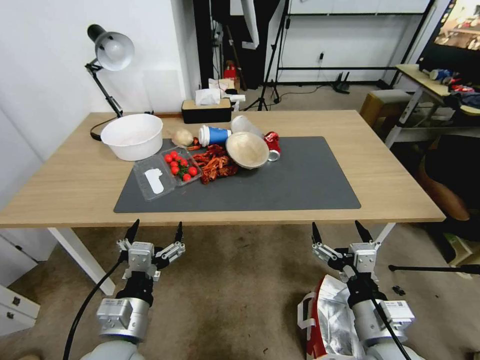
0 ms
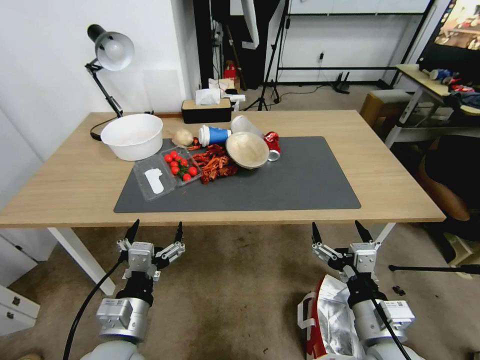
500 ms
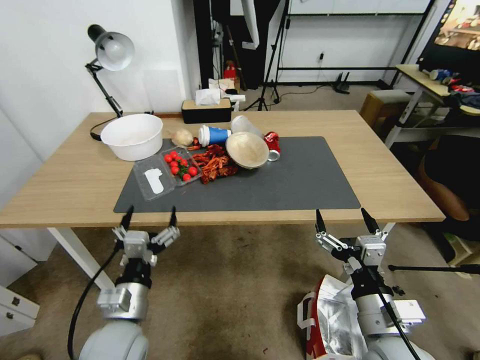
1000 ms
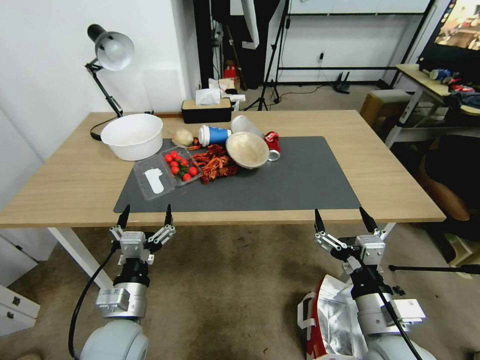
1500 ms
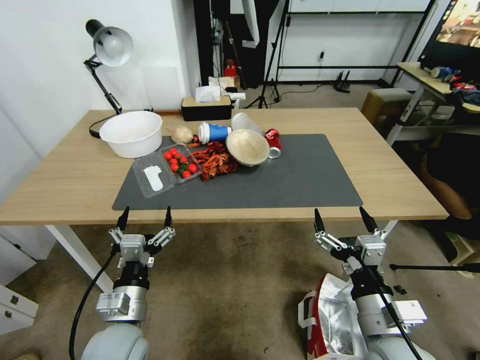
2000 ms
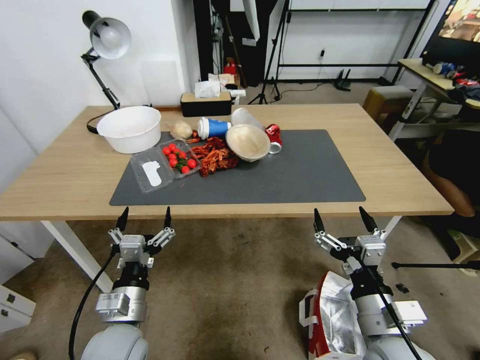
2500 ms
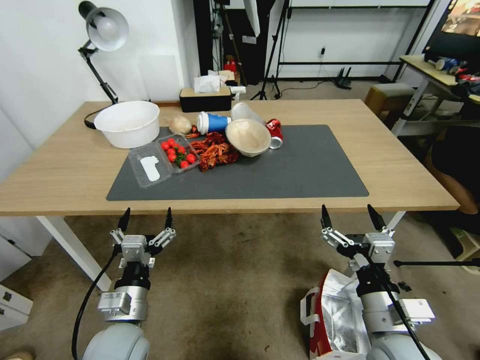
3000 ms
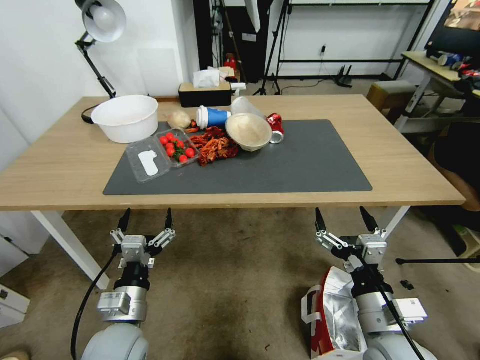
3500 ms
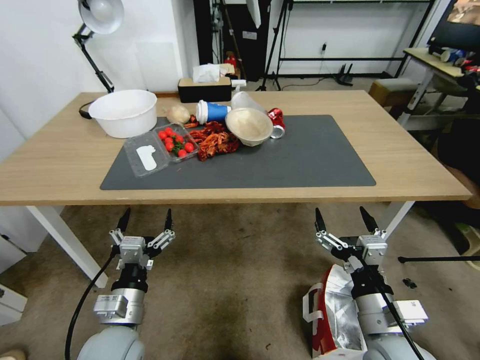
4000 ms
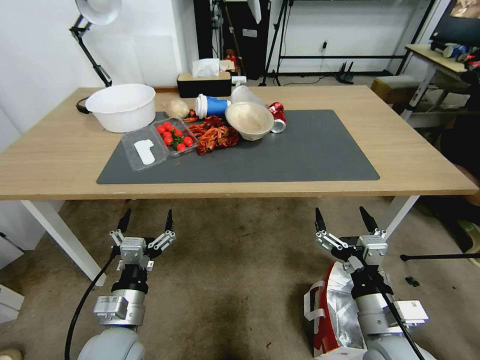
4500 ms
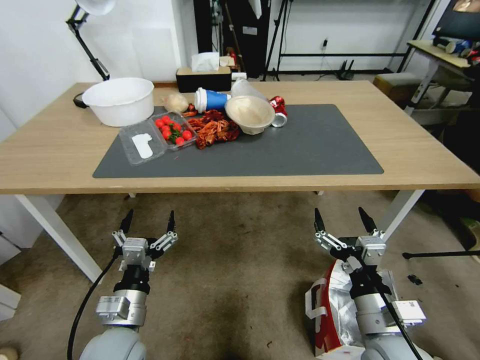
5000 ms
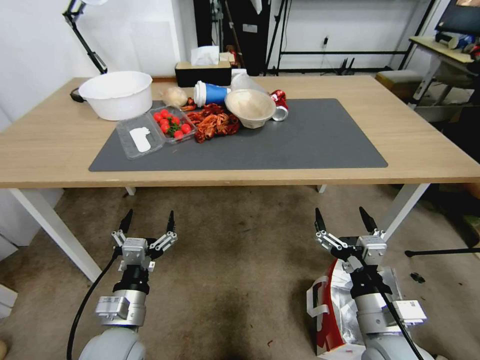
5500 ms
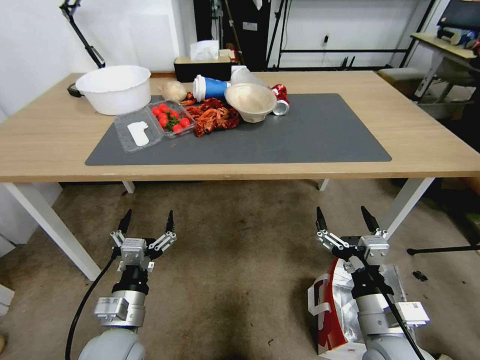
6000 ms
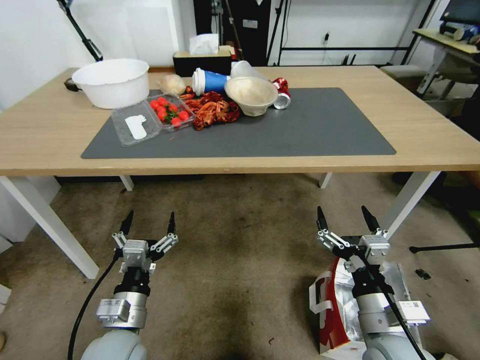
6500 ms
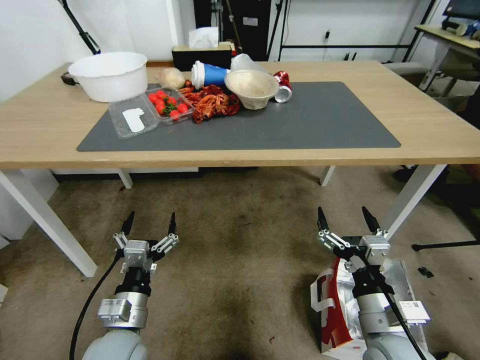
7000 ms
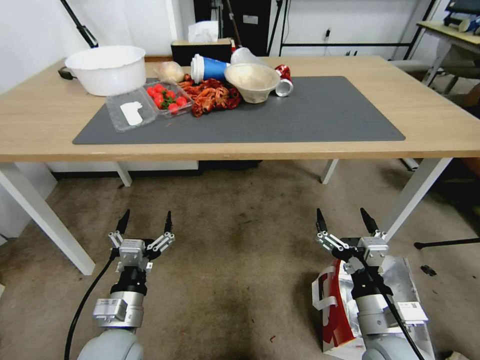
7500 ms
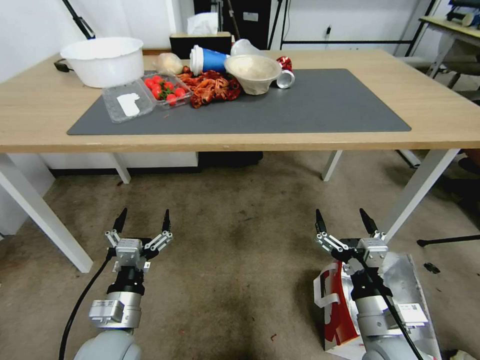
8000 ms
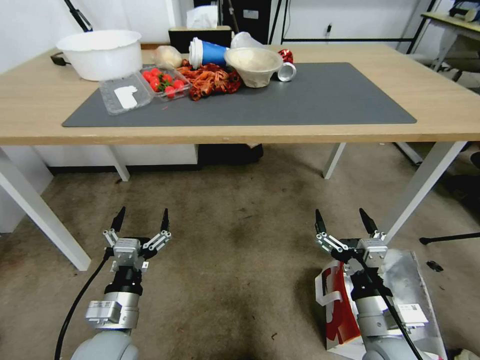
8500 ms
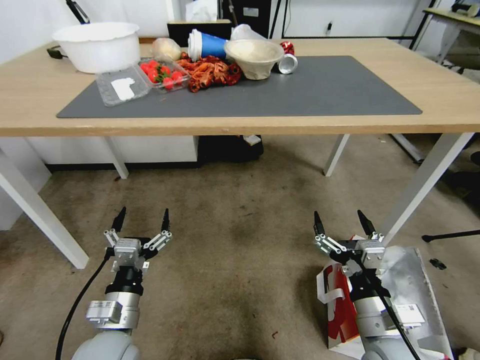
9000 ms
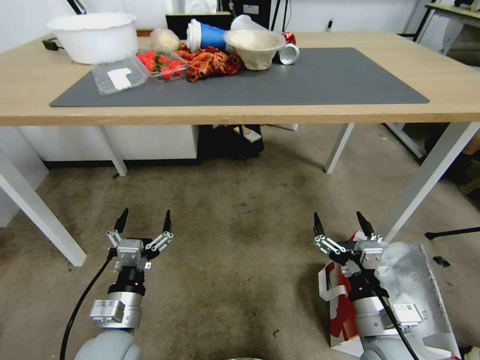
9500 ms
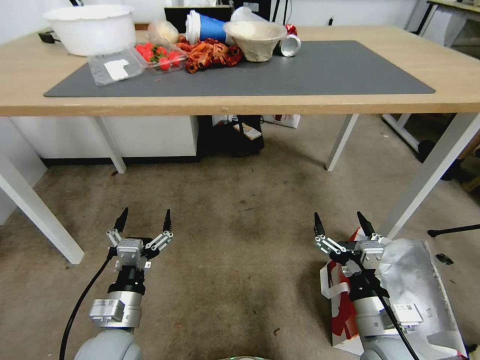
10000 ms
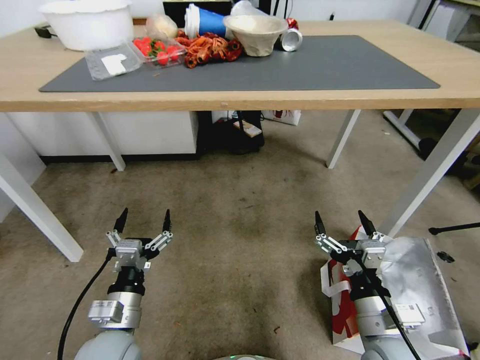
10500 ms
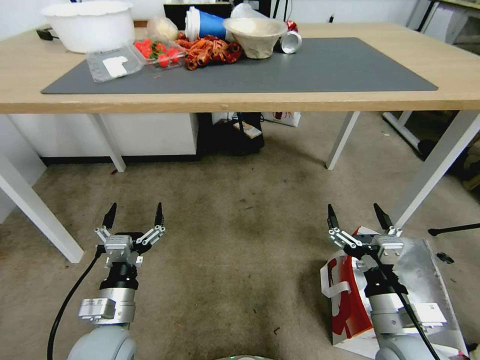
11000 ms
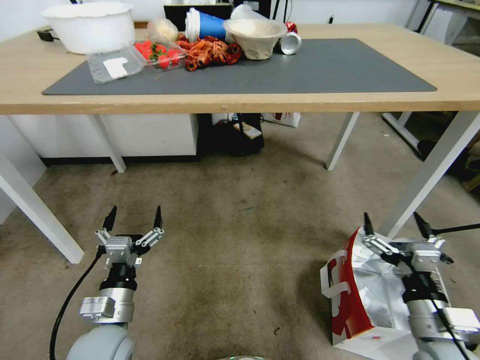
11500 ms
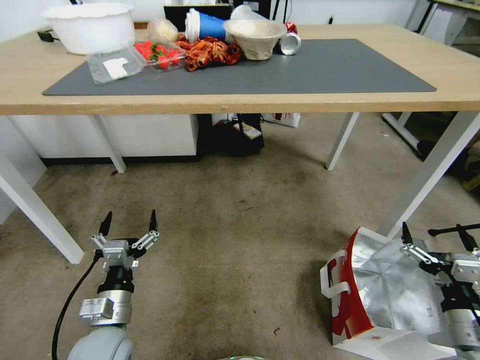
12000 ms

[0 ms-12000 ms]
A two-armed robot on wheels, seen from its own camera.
Task of the whole recording: Pick up the food delivery bag from the floor and place it on the table.
10000 ms to 12000 ms: The right gripper shifts approximately 15 cm to the right.

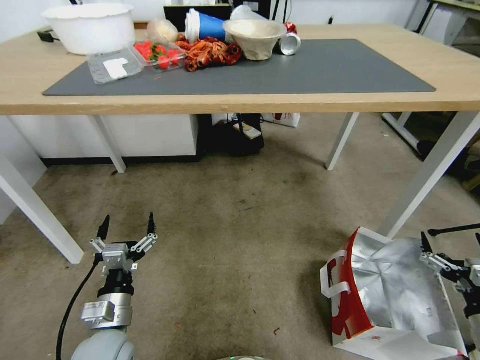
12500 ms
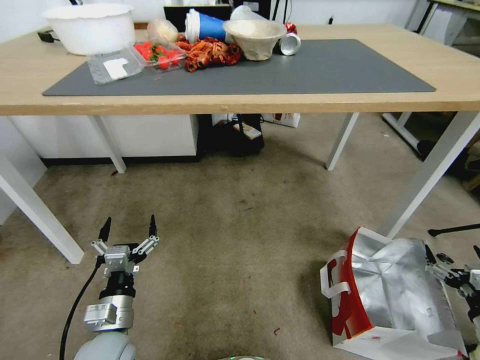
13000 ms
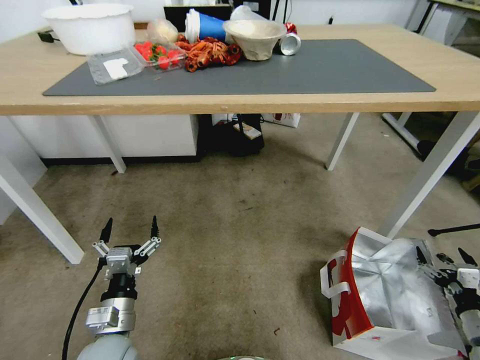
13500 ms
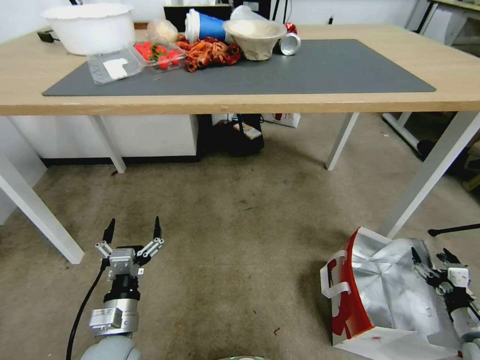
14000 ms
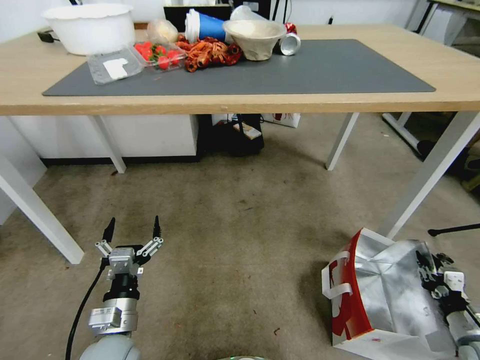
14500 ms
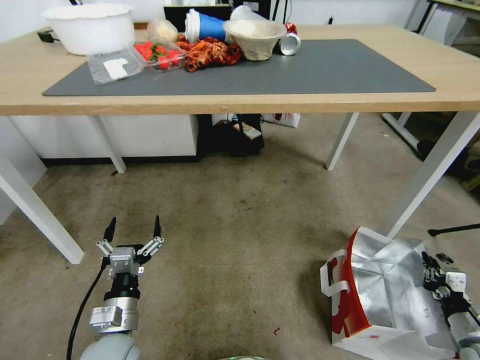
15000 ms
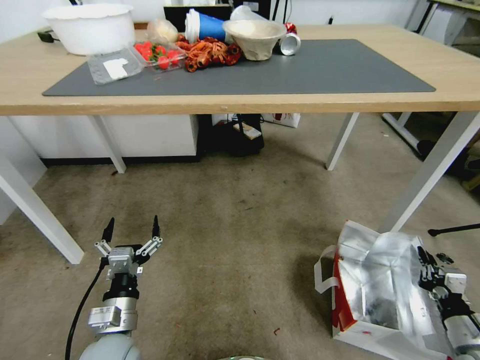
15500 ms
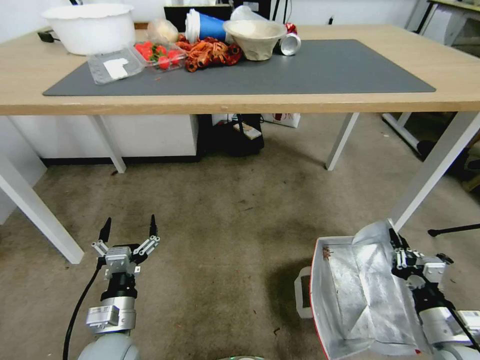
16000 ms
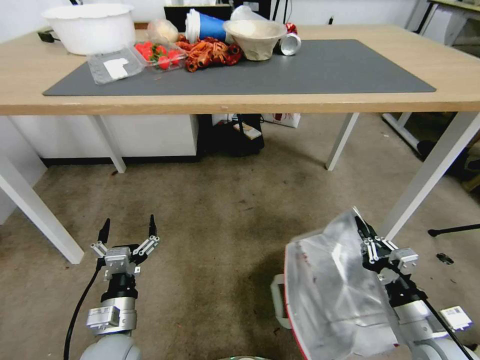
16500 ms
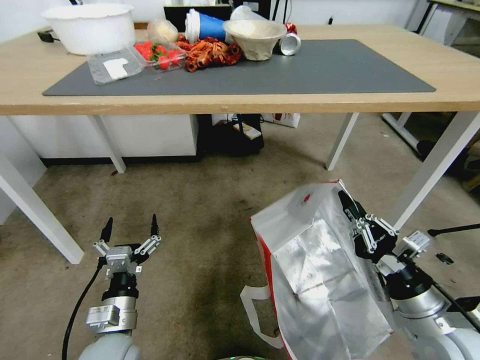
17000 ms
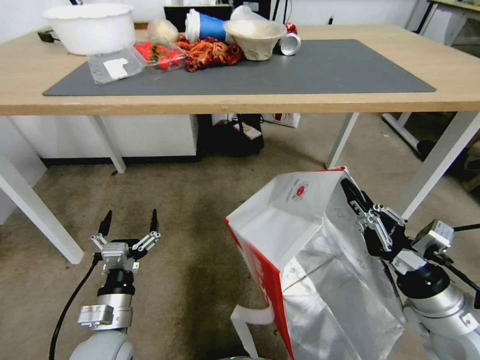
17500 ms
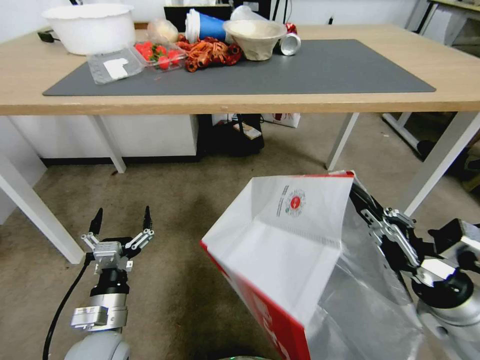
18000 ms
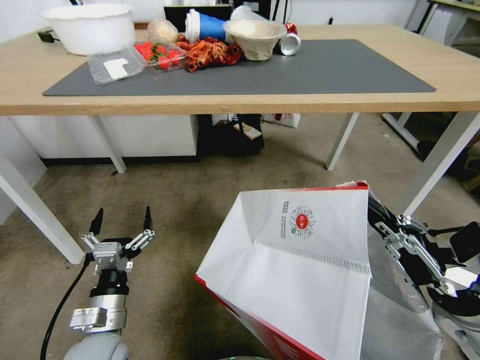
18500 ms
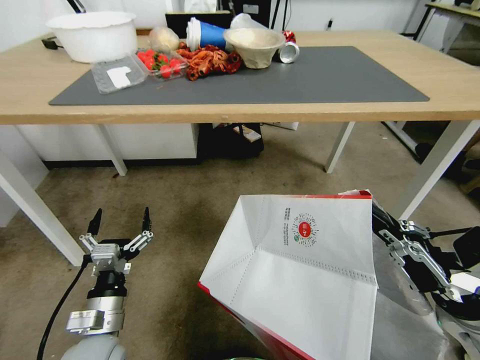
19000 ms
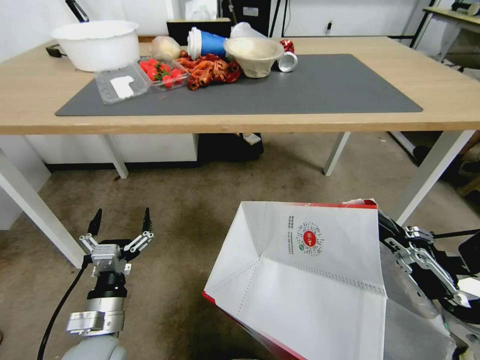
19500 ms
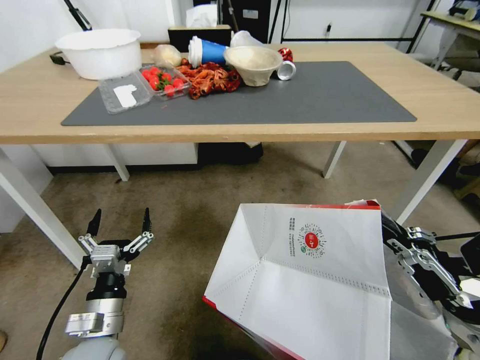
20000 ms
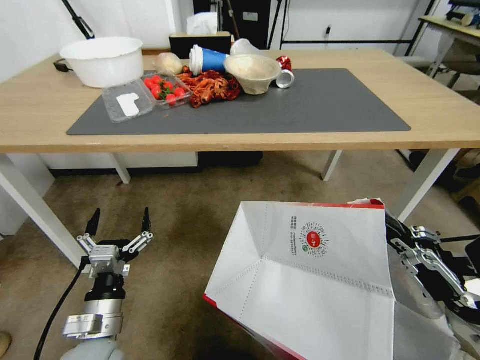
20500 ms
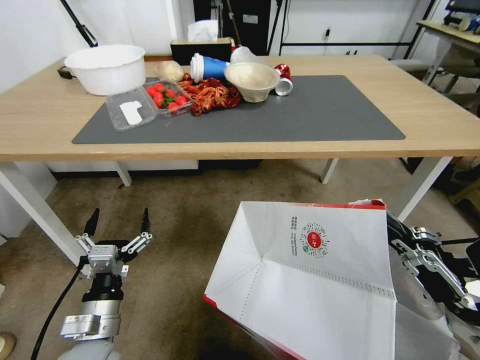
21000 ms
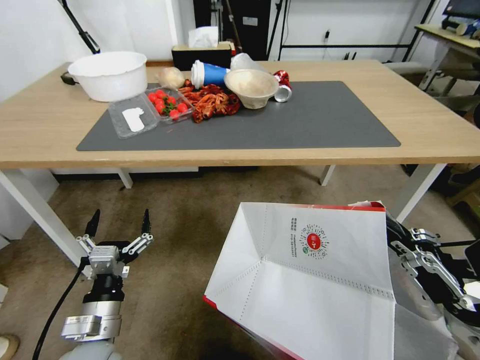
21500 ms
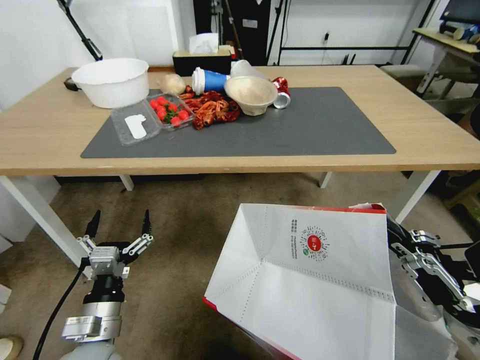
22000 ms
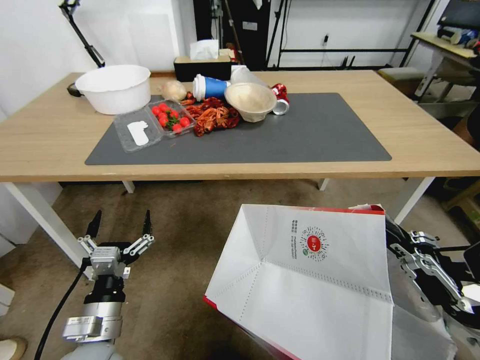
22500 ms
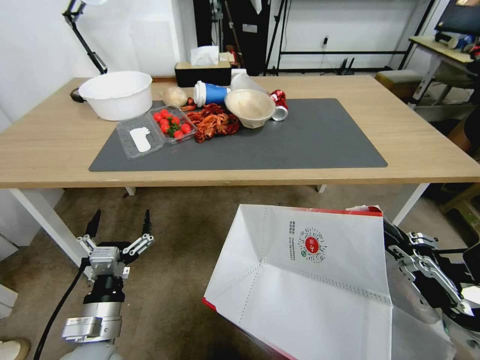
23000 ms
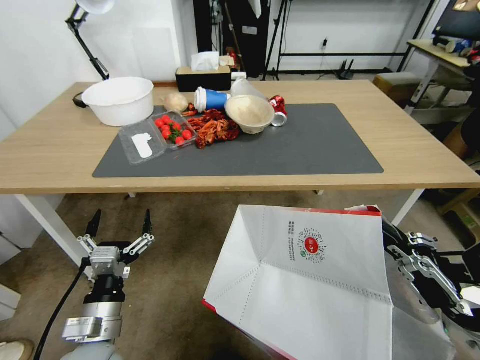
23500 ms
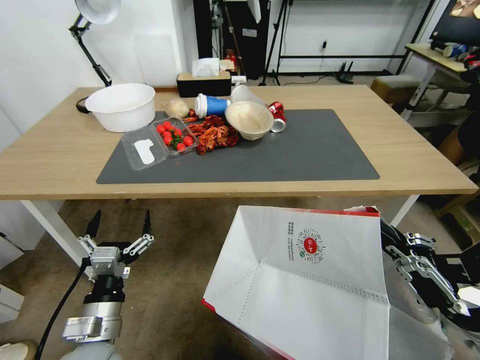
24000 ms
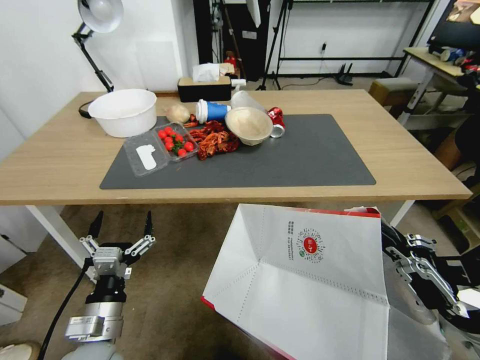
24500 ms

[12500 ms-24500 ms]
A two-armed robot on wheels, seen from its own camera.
Task of the whole recording: Pick up the food delivery bag from the floor and place it on the table.
12500 ms to 14500 ms: The right gripper shifts approximately 10 cm downward, and closes.
14500 ms to 16500 ms: The right gripper travels to the left and upward by about 20 cm.
16500 ms to 18500 ms: The right gripper is displaced upward by some 15 cm.

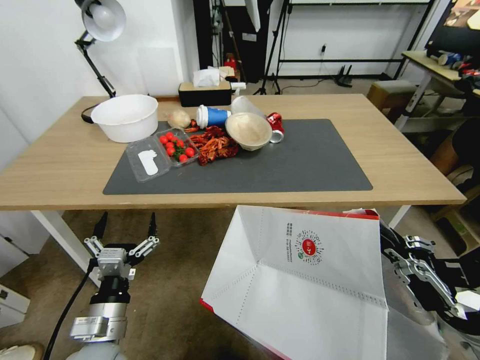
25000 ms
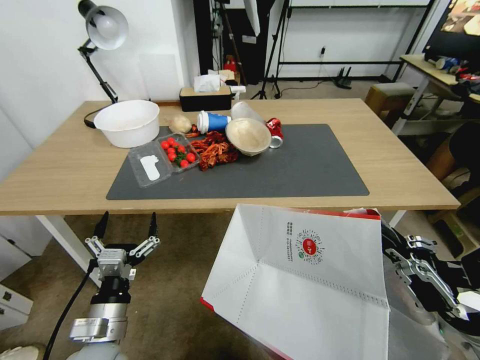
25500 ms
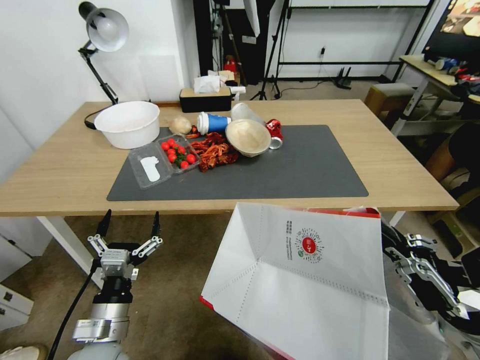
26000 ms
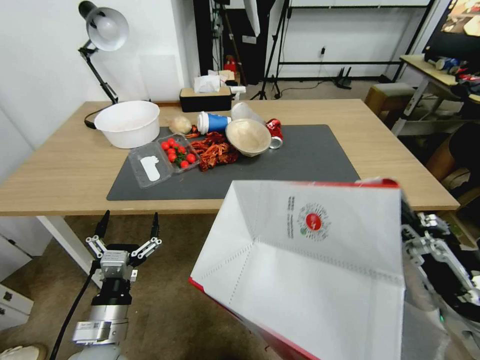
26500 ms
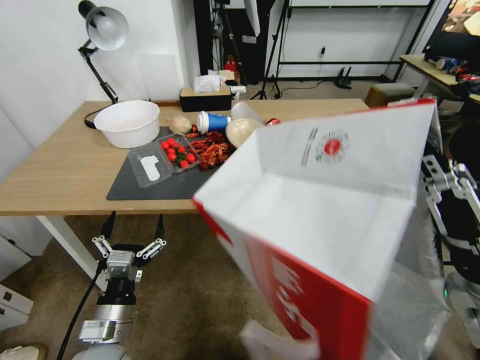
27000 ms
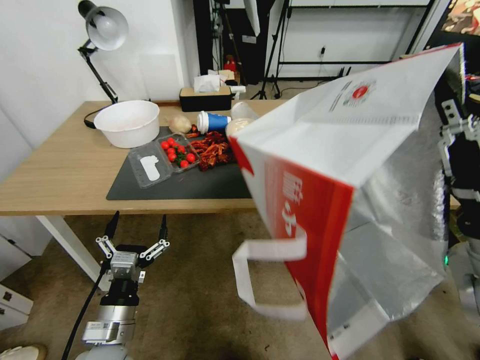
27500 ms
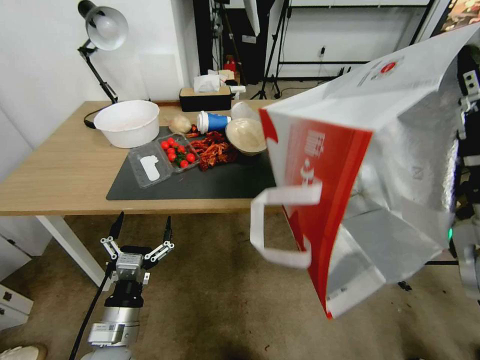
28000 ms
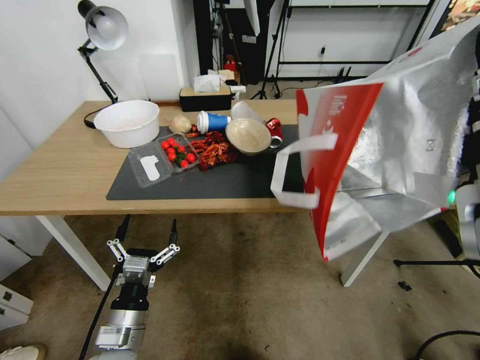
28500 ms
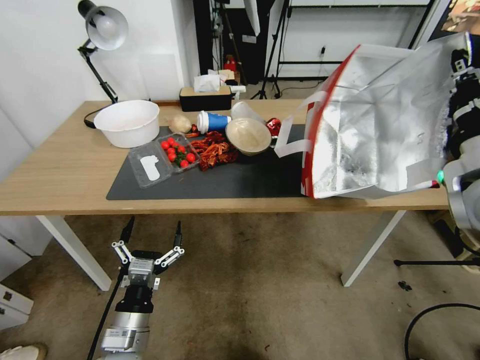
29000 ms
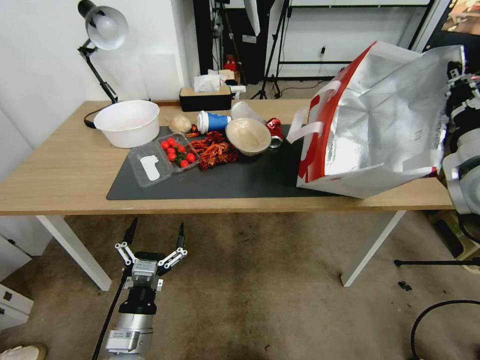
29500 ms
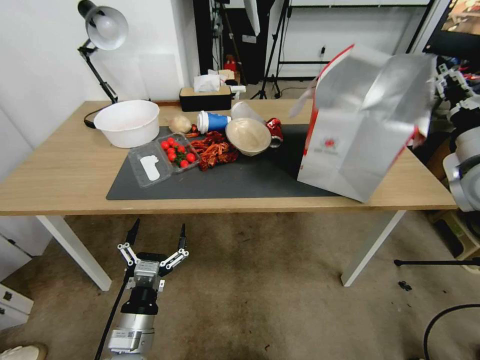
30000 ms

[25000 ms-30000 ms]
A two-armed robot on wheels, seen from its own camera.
Task of the whole recording: Pick up the food delivery bag from the floor and place it on the table.
25000 ms to 27500 ms: The right gripper goes some 10 cm upward.
27500 ms to 30000 ms: The right gripper goes approximately 20 cm forward and to the right, and opens.
